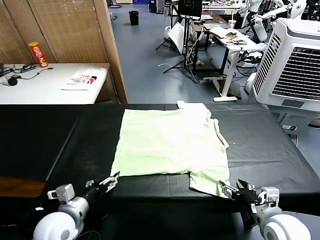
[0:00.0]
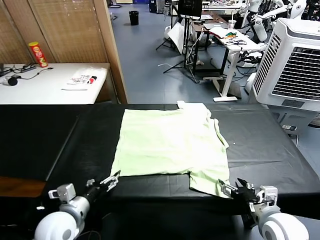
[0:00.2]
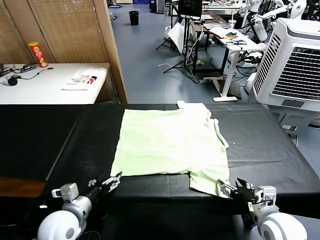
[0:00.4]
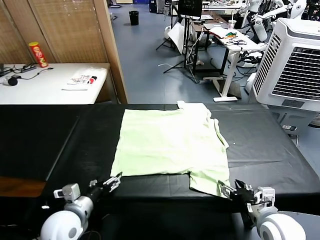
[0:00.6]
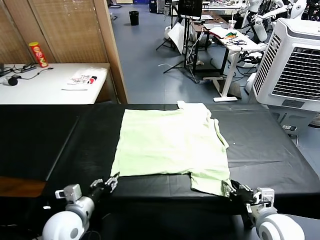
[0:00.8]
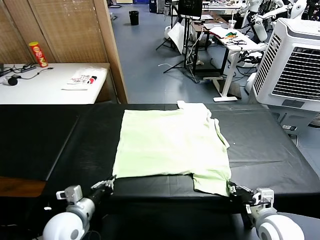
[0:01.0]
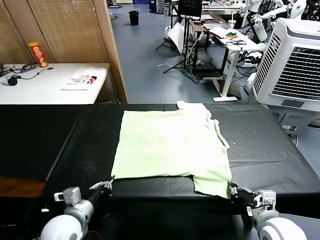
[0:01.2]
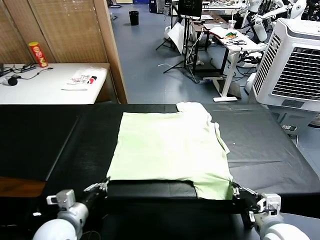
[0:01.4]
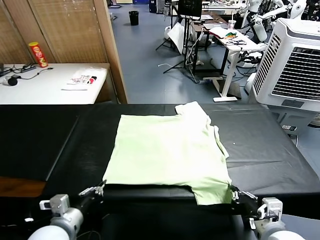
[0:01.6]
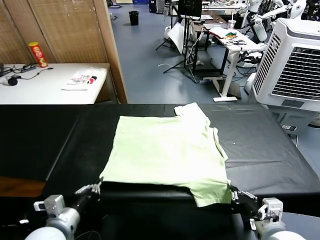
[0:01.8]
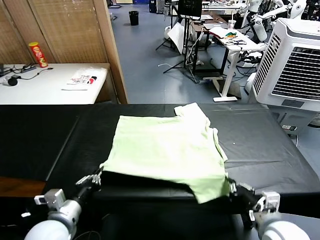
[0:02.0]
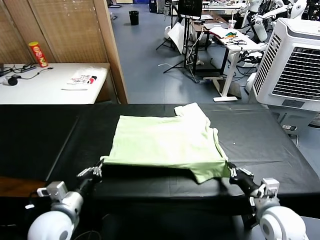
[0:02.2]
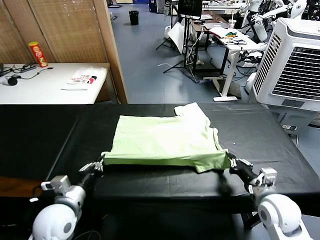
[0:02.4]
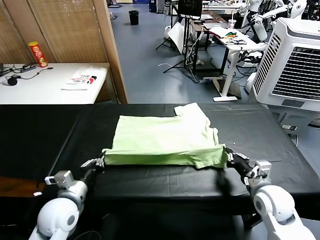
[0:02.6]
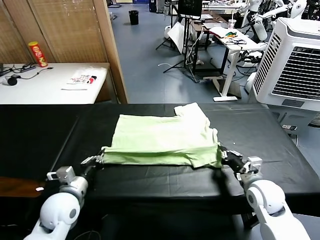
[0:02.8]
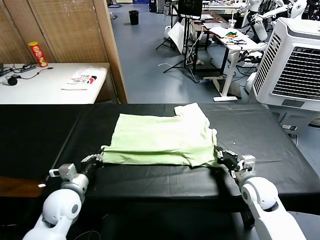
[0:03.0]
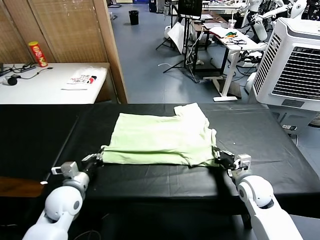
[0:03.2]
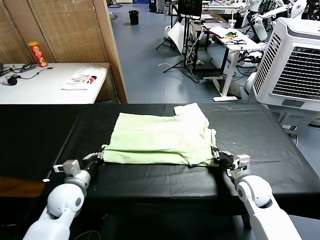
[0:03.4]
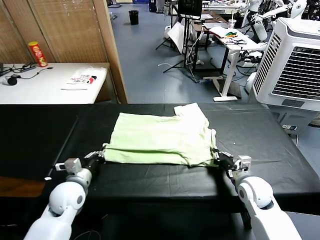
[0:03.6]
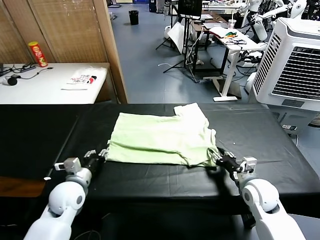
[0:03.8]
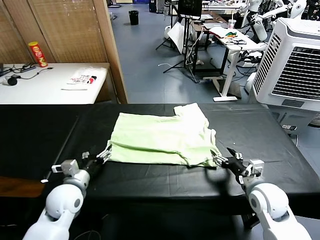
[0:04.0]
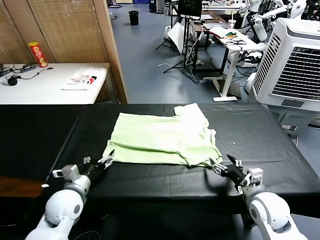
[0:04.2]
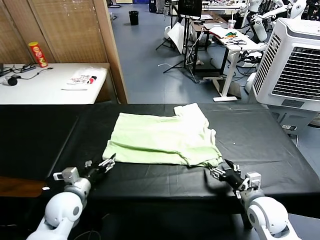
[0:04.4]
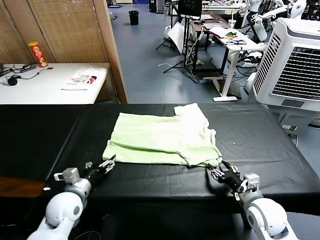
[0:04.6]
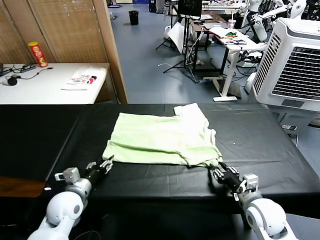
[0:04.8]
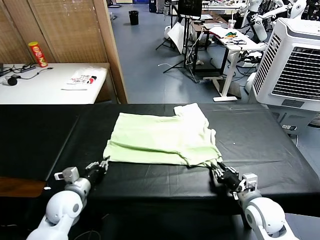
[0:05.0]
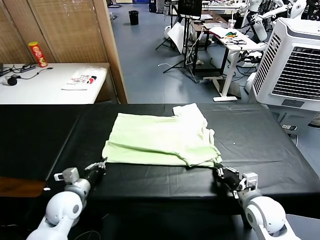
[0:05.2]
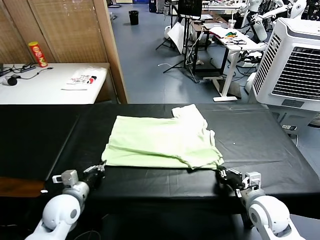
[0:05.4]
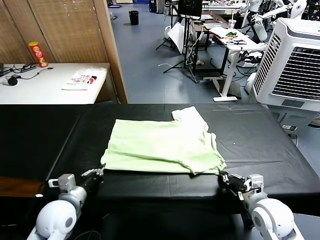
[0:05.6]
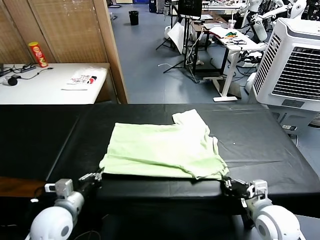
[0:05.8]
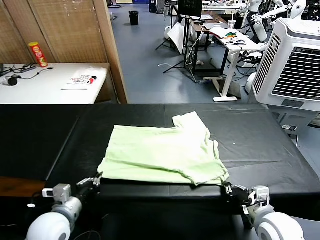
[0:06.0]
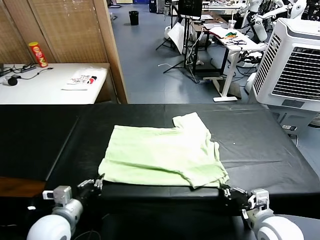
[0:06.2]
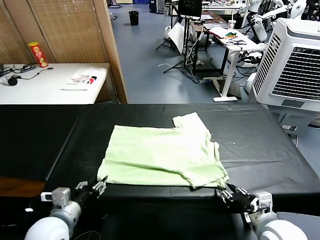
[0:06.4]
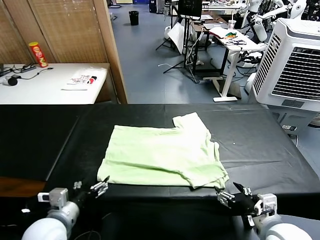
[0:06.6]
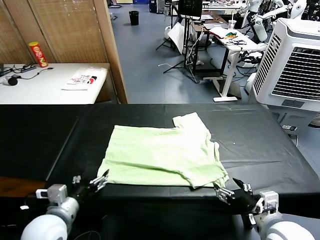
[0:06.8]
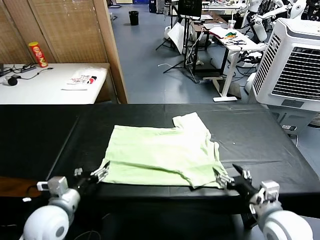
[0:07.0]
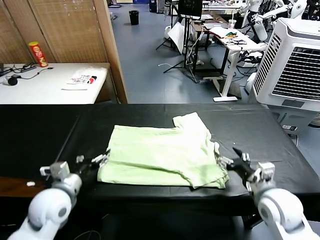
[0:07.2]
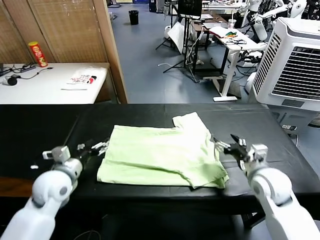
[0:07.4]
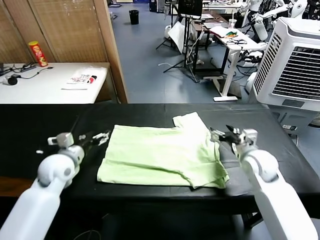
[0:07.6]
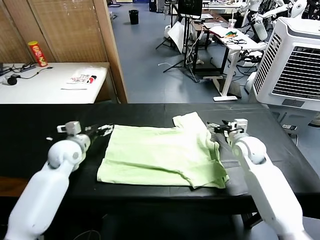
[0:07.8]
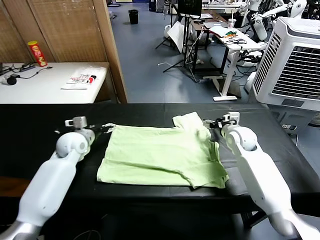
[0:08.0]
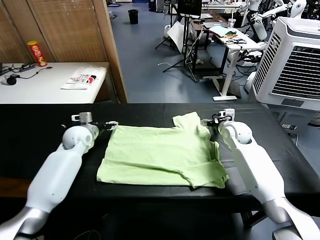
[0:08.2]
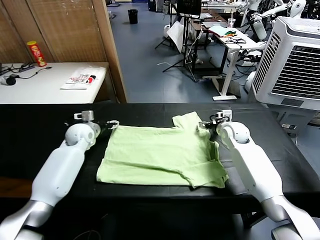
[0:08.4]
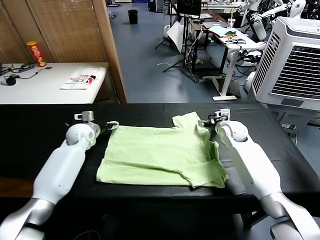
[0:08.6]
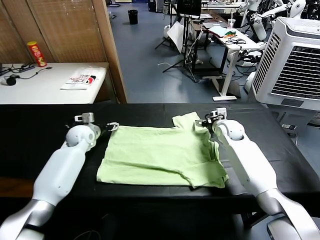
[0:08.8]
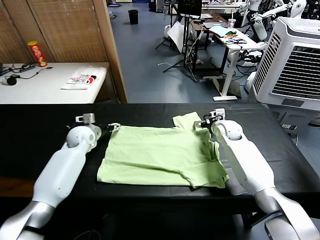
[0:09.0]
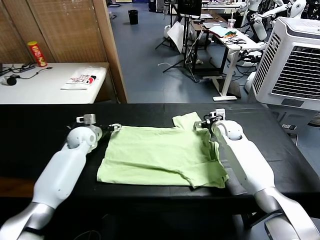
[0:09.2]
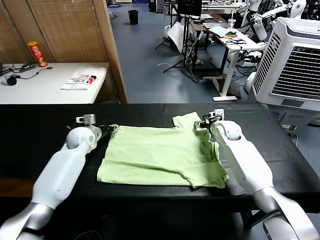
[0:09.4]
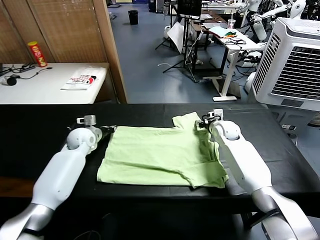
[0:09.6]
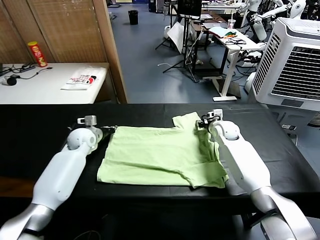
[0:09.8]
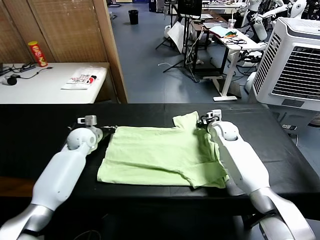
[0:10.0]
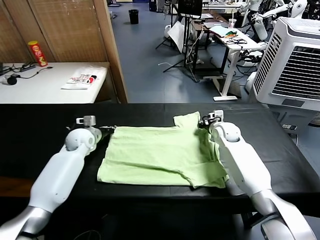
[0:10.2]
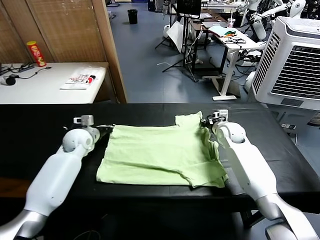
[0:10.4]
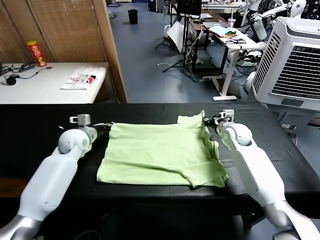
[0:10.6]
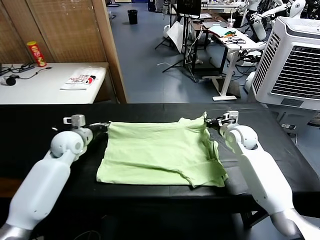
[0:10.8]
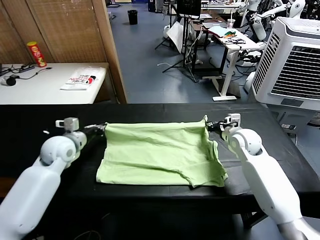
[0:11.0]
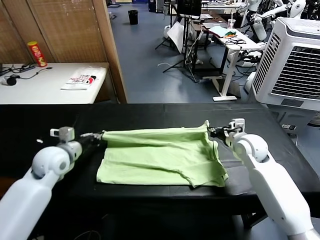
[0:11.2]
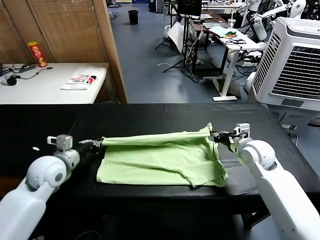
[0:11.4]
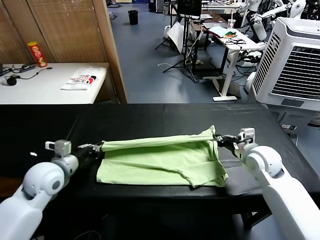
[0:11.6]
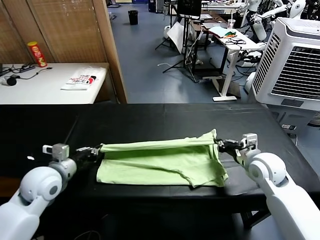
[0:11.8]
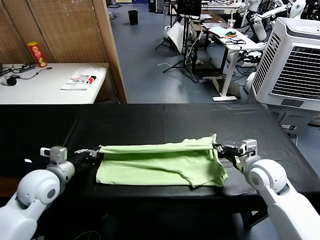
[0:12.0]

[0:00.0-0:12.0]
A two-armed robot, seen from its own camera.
Task of the whole recording: fold and organize the clothes.
Step, 0:00.0 to 0:01.0: use both grippers simultaneously to clamp the lower edge of the clothing fabric.
Step, 0:01.2 to 0:04.0: use both grippers to drag the lower edge of the fabric forward and fold it over the upper edge.
Step, 0:04.2 to 0:06.6: Drag the clothes downward with both gripper.
Step, 0:06.8 to 0:10.0: use both grippers simultaneously to clamp the upper edge of the clothing fabric.
0:01.6 to 0:03.0: The right gripper travels forward and downward by roughly 20 cm. The left gripper goes roughly 10 cm forward.
0:03.0 to 0:04.4: The left gripper opens up, while the right gripper shifts about 10 cm backward, and opens.
0:04.4 to 0:06.0: Both grippers move backward, approximately 5 cm. The left gripper closes up, while the right gripper closes.
0:06.0 to 0:07.6: Both grippers move forward, about 20 cm. The left gripper opens. The right gripper opens its fingers.
0:07.6 to 0:09.0: Both grippers travel together forward, some 15 cm.
0:09.0 to 0:10.4: The right gripper closes, while the left gripper closes.
0:10.4 to 0:12.0: Both grippers travel together backward, roughly 20 cm.

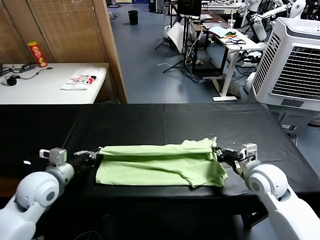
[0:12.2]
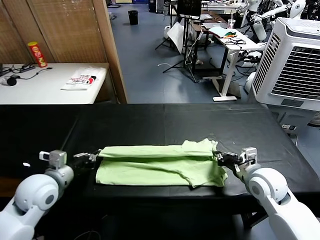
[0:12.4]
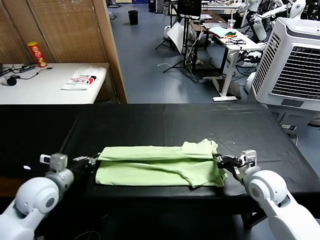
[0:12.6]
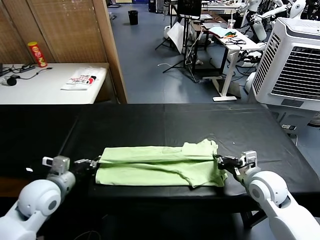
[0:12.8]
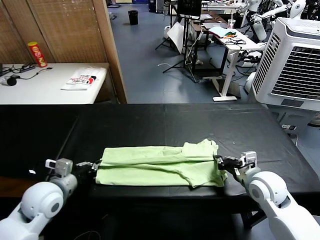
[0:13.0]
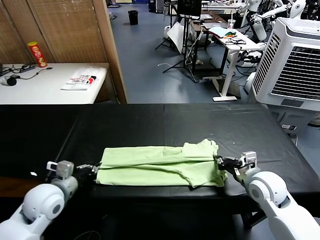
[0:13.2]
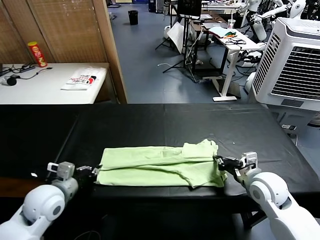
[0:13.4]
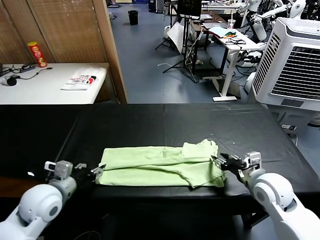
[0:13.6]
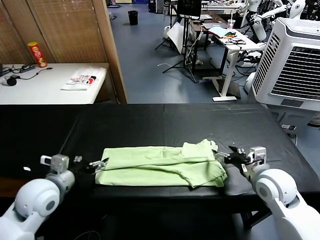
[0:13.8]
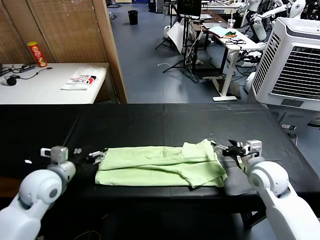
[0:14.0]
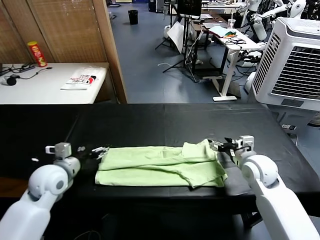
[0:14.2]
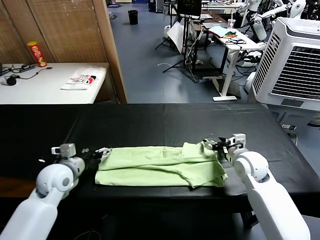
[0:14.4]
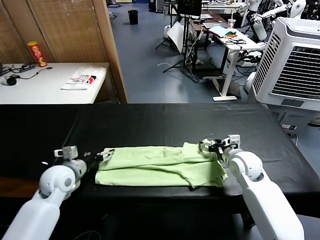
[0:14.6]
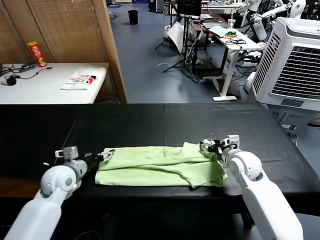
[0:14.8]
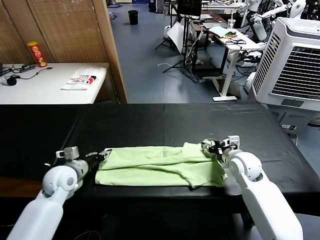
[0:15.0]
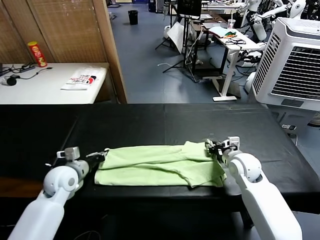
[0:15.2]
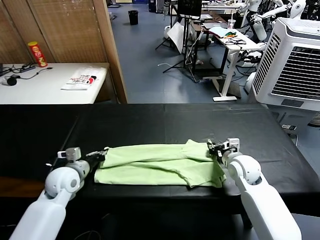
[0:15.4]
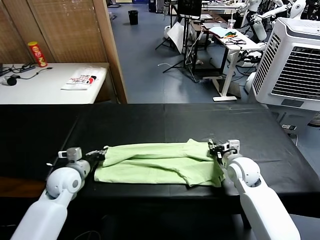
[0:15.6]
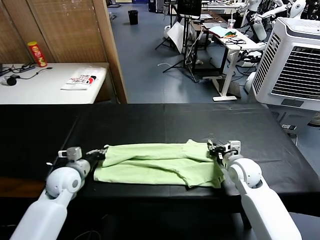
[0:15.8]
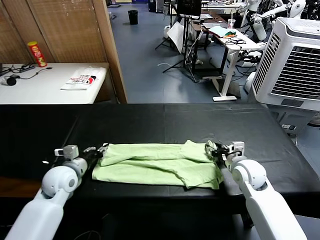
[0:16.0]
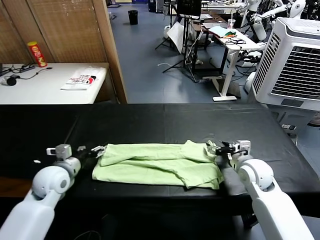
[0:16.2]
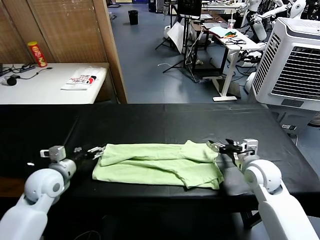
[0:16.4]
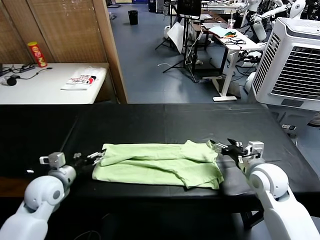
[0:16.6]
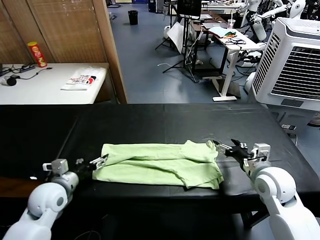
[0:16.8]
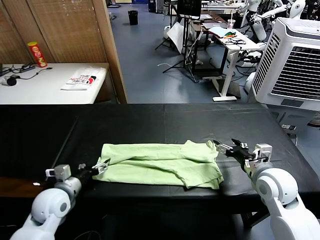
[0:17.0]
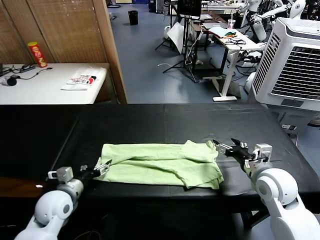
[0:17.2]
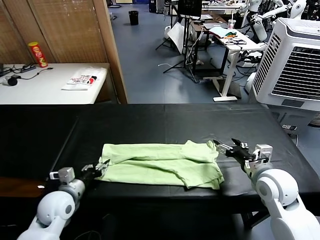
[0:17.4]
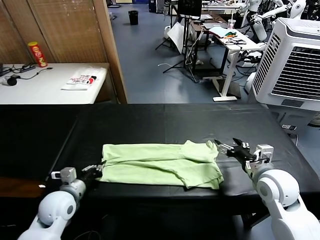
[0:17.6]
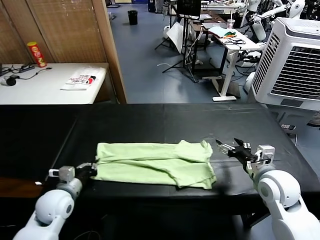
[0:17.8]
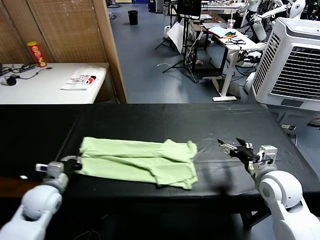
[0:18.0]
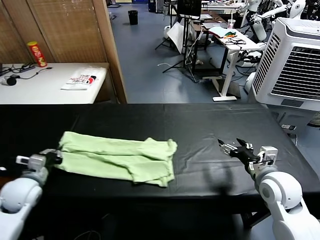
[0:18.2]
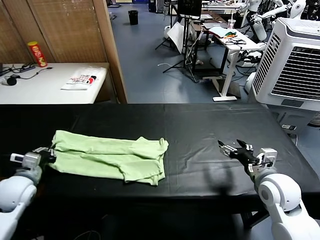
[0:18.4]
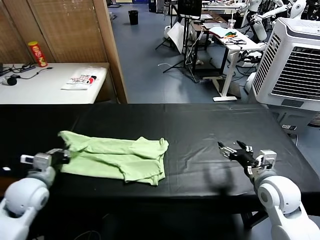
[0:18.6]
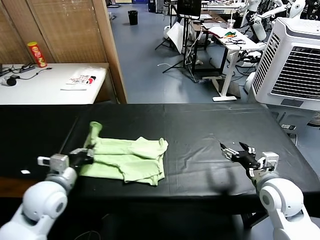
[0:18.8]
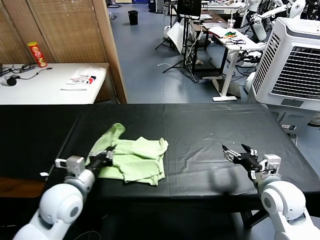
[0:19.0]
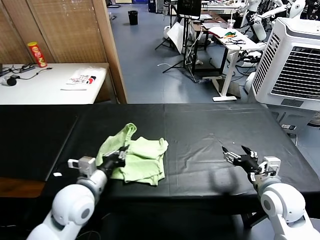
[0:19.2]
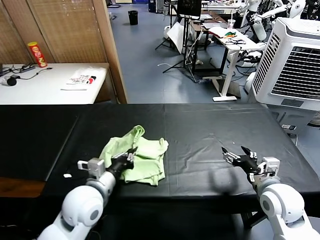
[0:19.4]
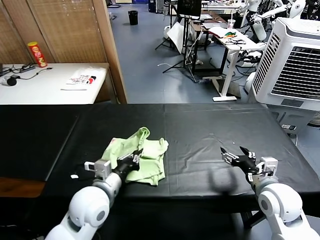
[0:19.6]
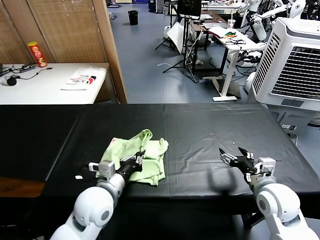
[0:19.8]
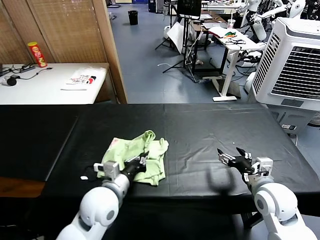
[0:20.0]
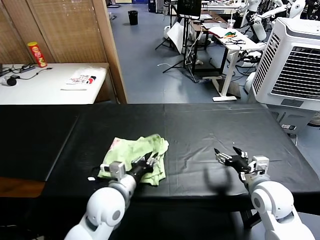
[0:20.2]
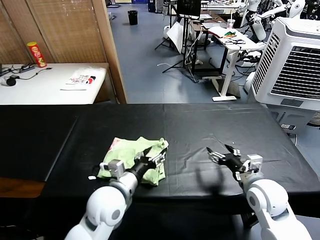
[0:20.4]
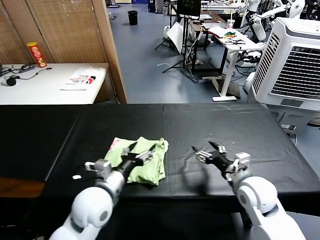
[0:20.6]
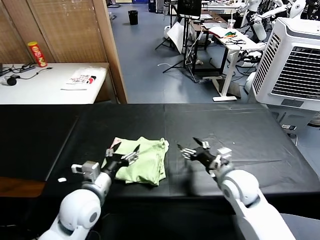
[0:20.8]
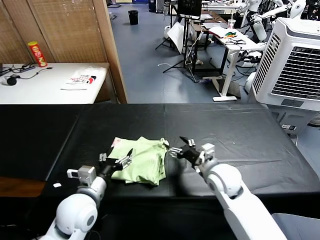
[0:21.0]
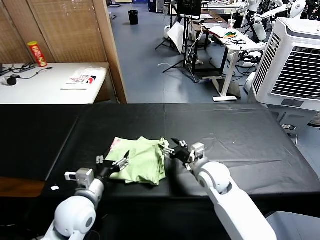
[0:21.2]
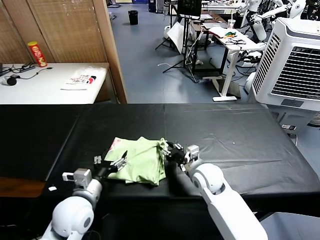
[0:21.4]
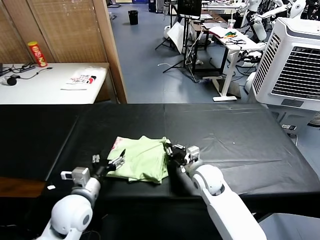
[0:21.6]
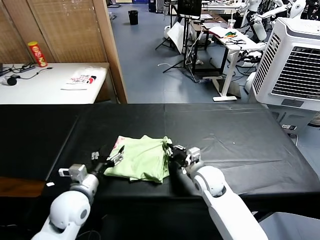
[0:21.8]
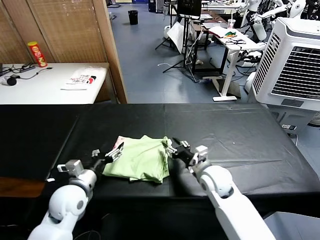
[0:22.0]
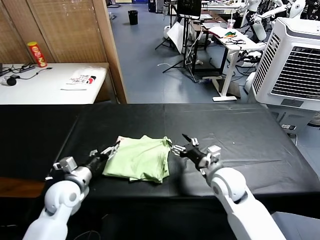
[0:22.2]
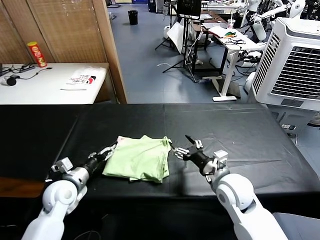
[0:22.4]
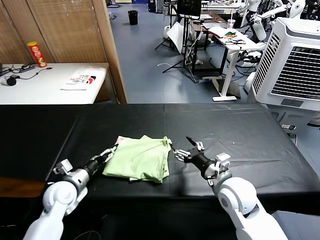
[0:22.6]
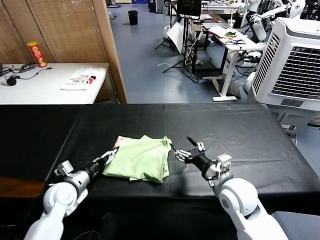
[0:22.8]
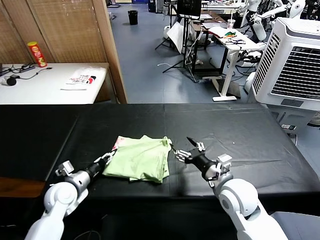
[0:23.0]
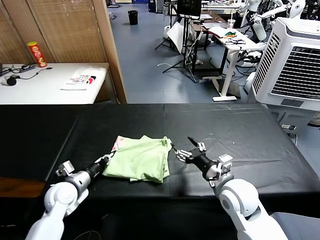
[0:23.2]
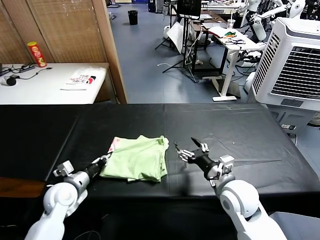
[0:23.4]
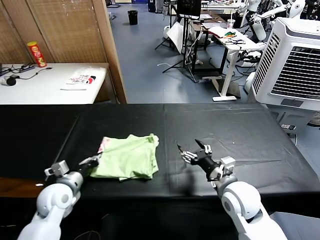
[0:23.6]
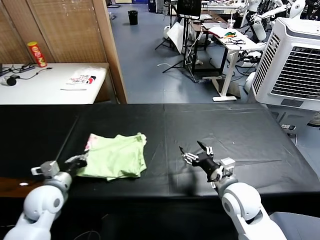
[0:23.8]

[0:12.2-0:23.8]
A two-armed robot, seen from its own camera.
Task of the whole recording: fold and organize the clothes.
Step, 0:13.8 to 0:17.6: use the left gripper to clamp the left edge of the fabric.
Step, 0:17.8 to 0:20.2: use the left gripper to drag the left edge of the fabric to the left and folds it over the right edge.
0:12.2 to 0:13.6: The left gripper opens. Meanwhile the right gripper opens.
0:13.6 to 0:15.0: The right gripper moves forward, some 10 cm. Meanwhile the left gripper heads forward and downward, covering some 10 cm, and opens and closes again.
0:15.0 to 0:16.6: The left gripper moves approximately 5 cm, and opens its fingers, while the right gripper shifts some 10 cm backward and upward, and opens.
0:16.6 to 0:18.0: The left gripper closes.
0:18.0 to 0:19.4: The left gripper heads to the right and upward, covering roughly 15 cm.
0:19.4 to 0:21.0: The left gripper reaches approximately 5 cm to the right, then returns, and opens up, while the right gripper is displaced to the left and forward by roughly 15 cm.
0:21.0 to 0:22.4: The right gripper closes, then reopens. The left gripper shifts approximately 15 cm to the left, forward and downward.
0:22.4 to 0:23.8: The left gripper closes its fingers.
